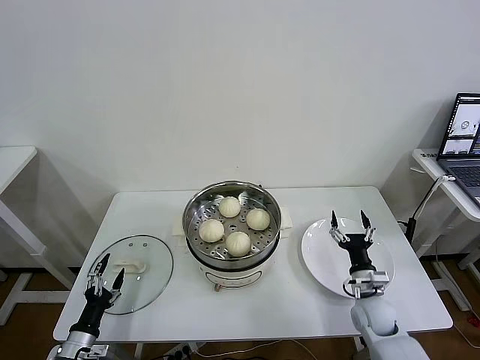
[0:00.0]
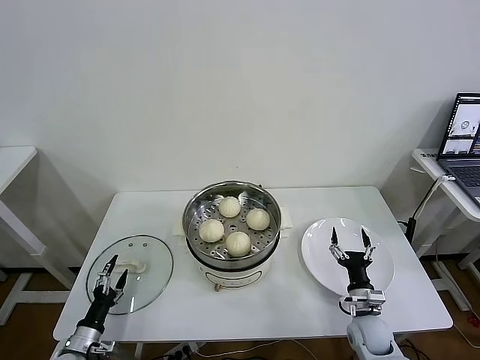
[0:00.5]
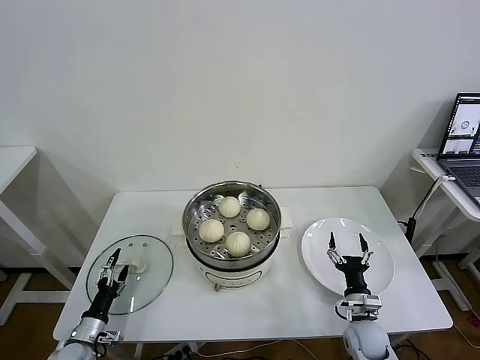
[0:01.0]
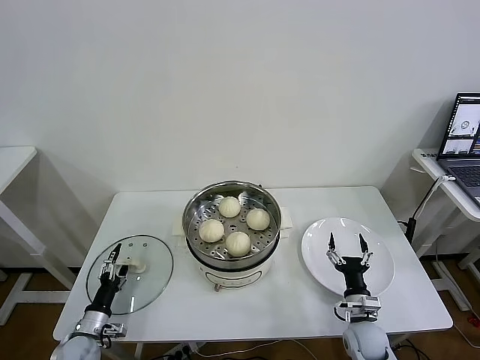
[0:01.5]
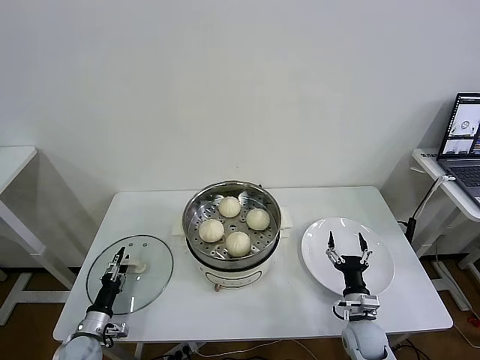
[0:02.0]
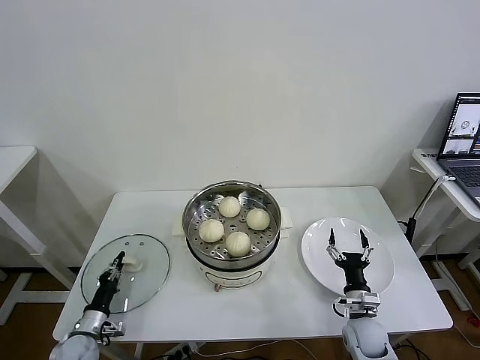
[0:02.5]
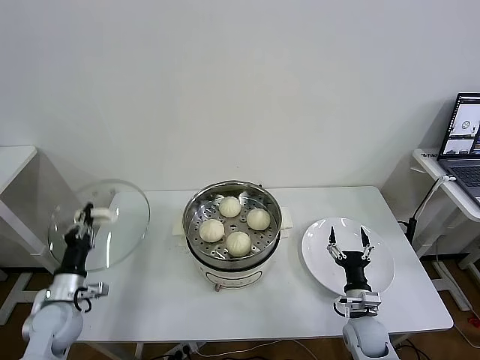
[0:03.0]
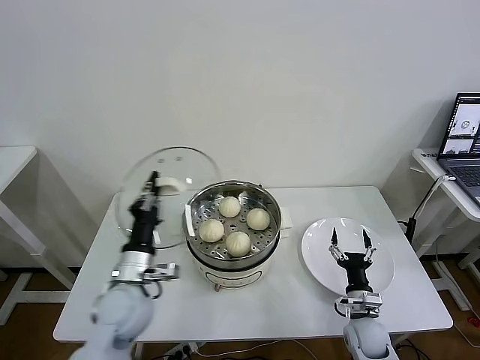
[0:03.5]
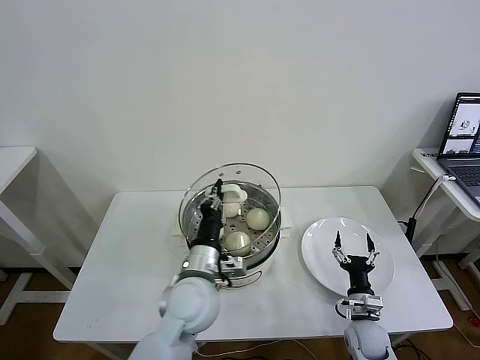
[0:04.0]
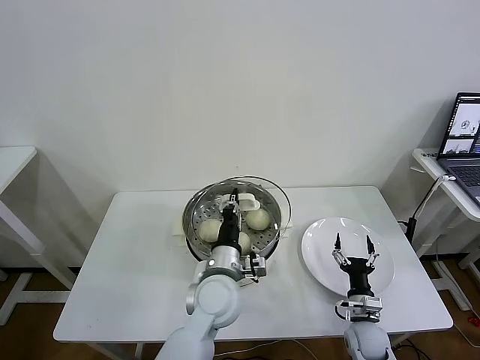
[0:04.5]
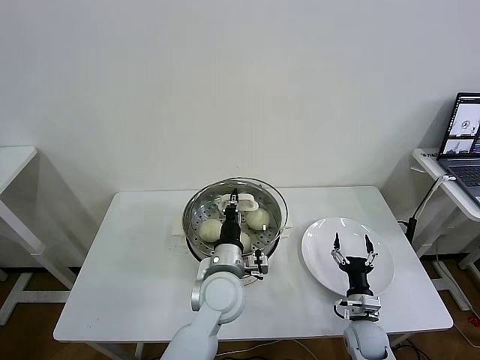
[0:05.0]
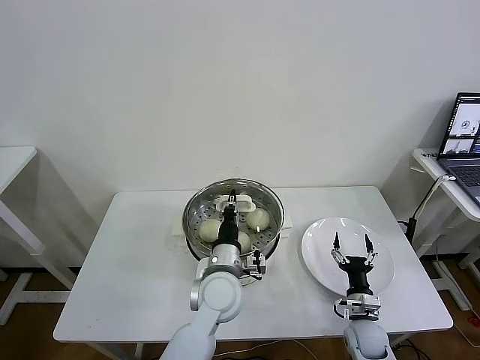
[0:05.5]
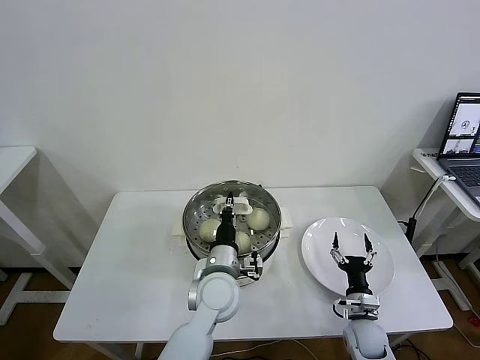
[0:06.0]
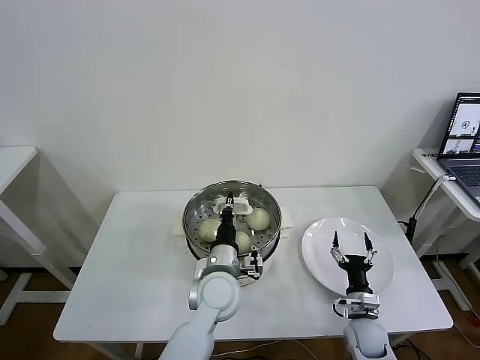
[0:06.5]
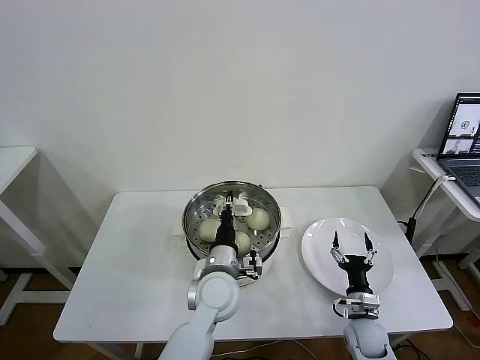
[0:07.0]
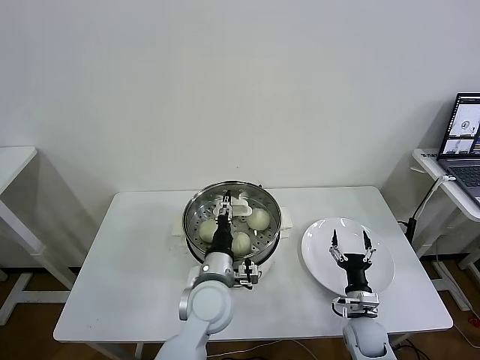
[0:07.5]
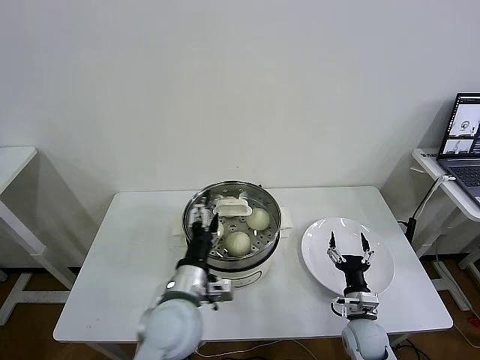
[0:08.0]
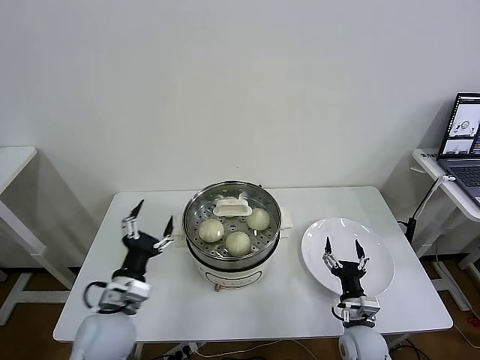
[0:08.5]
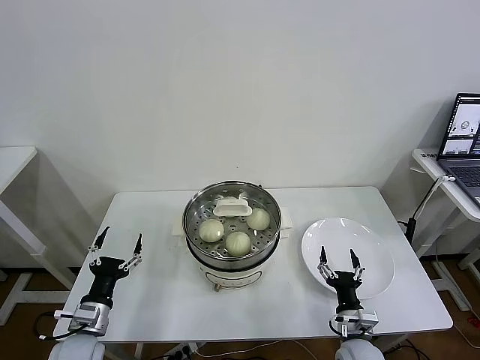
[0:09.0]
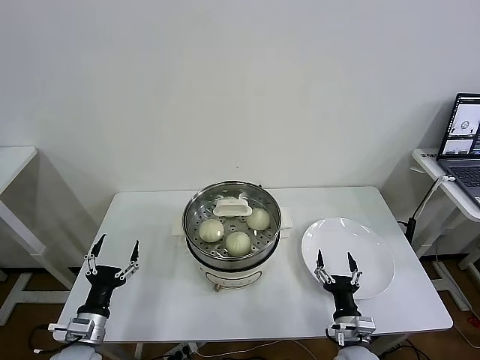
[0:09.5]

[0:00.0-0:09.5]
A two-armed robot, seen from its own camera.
Task of the whole recording: take steamed baozi put them in steamer then cover it.
Step, 0:00.0 to 0:02.5: Grasp the pot lid with left gripper.
Step, 0:03.0 to 0:07.0: Place the pot lid on the steamer with left gripper.
0:00.0 to 0:02.0: The right gripper ends up roughly 5 cm from where it was, while the left gripper moves forward and downward, roughly 10 cm, and closes up.
0:02.0 to 0:04.0: The left gripper is displaced to the right and upward by approximately 40 cm, and closes.
0:04.0 to 0:05.5: The left gripper shifts about 5 cm to the right.
0:05.5 to 0:07.5: The left gripper opens its fingers.
0:07.5 to 0:09.5: The right gripper travels backward and to the left by about 10 cm; the left gripper moves to the left, approximately 30 cm, and opens up.
